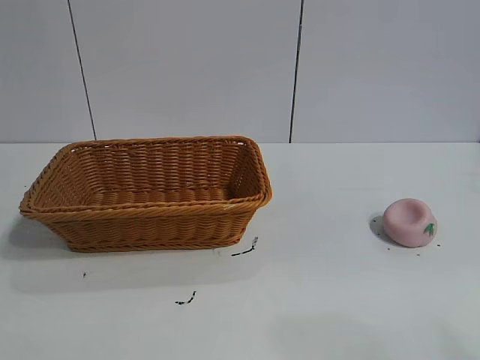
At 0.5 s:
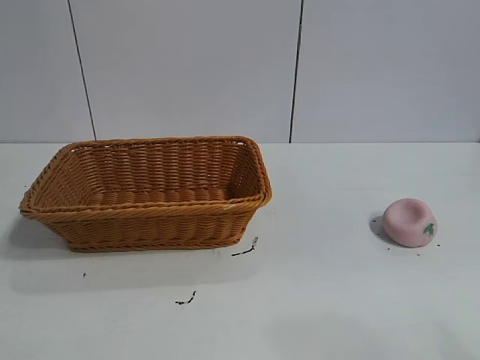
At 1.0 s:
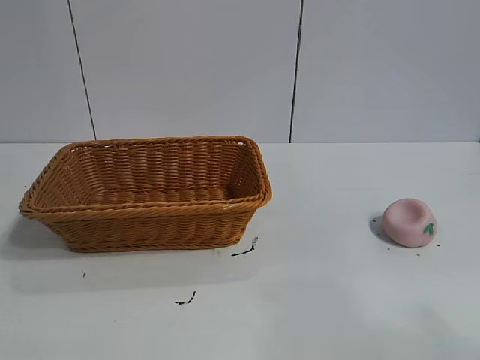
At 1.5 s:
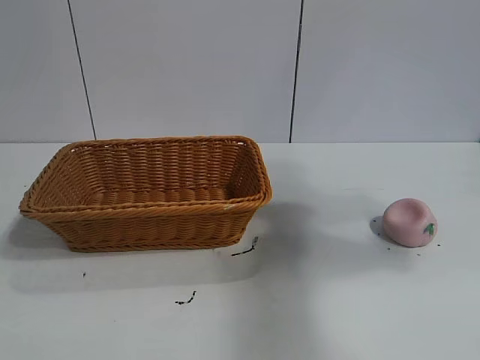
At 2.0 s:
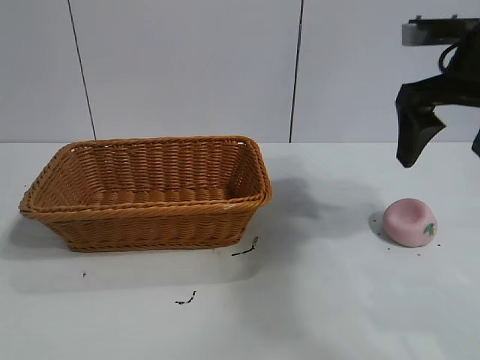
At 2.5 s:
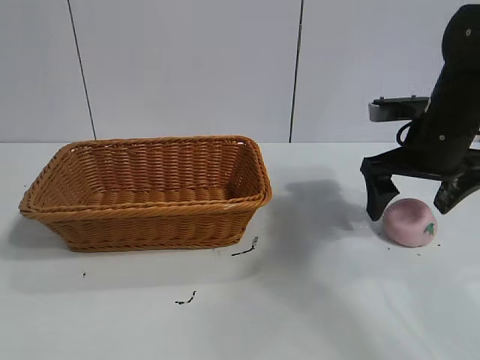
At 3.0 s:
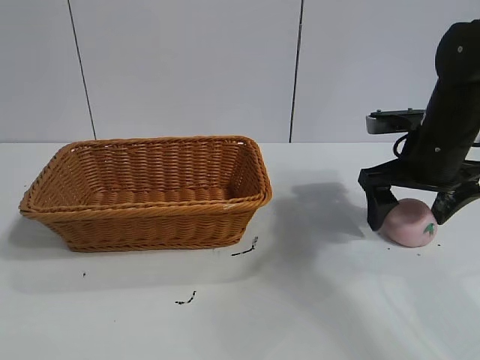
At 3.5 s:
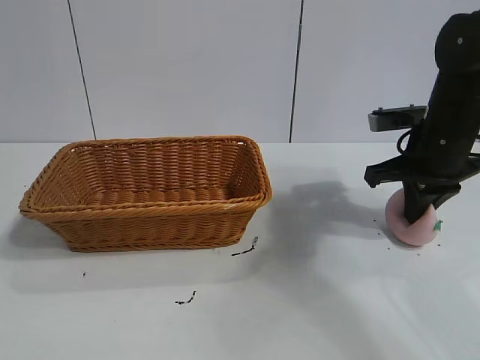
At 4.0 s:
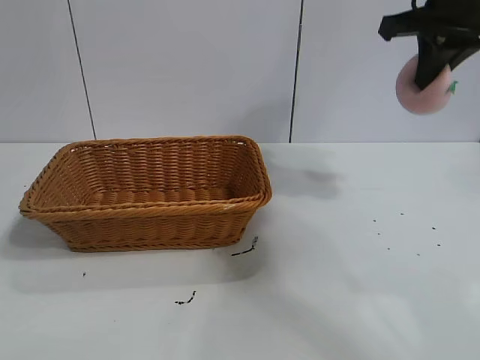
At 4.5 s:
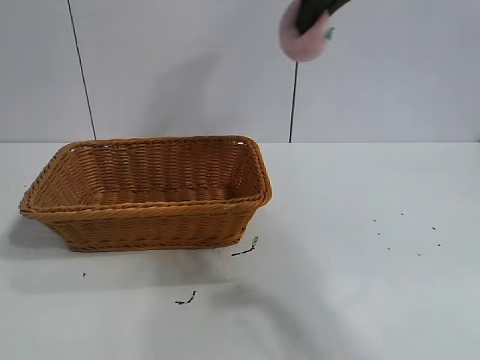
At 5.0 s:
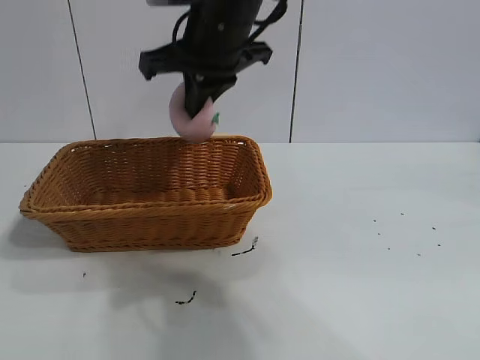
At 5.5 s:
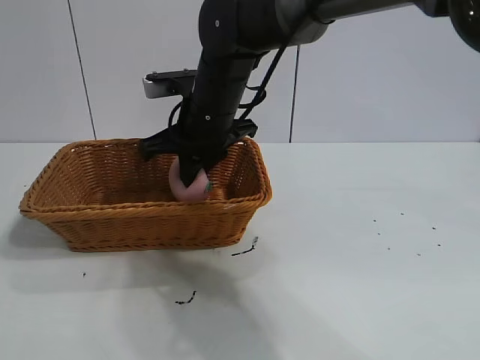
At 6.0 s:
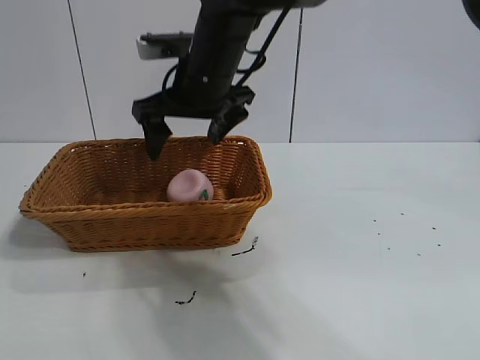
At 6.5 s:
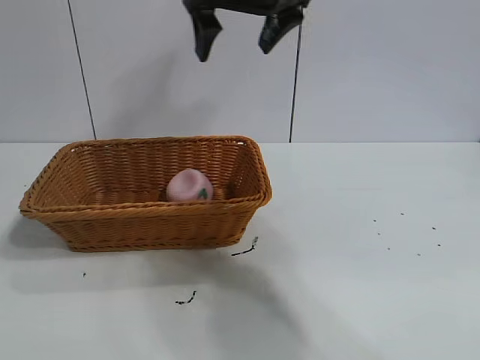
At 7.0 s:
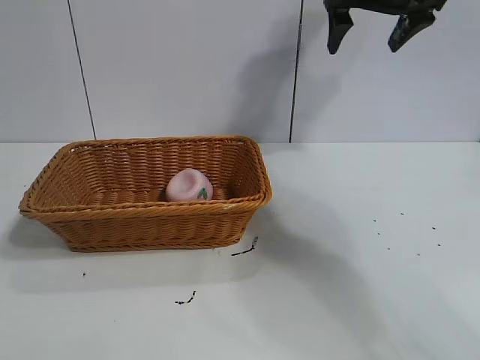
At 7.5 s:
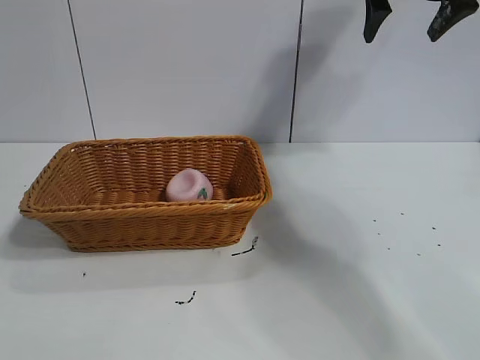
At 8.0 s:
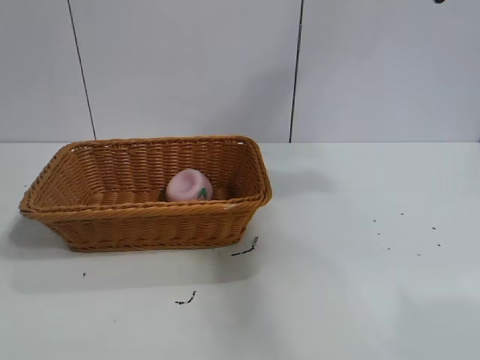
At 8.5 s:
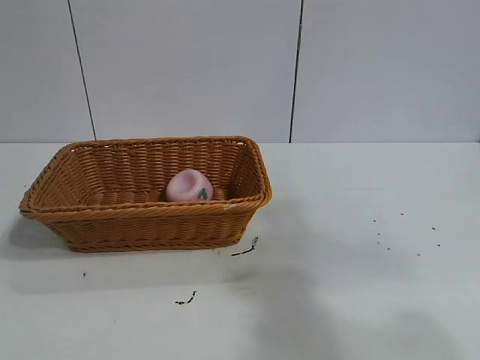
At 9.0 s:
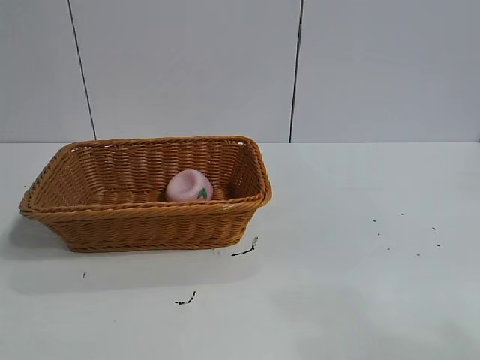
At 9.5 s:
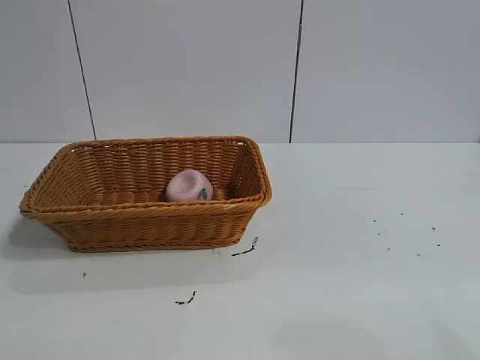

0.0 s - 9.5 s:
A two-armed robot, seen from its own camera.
Task of the whole recording: pick up the peach and put it into the basket.
Step, 1.0 s - 3.5 s: Grasp the peach with right gripper.
Step, 4.0 s - 6.0 s: Place the peach in the basket with right gripper.

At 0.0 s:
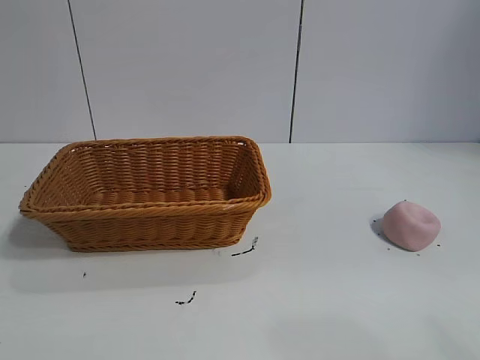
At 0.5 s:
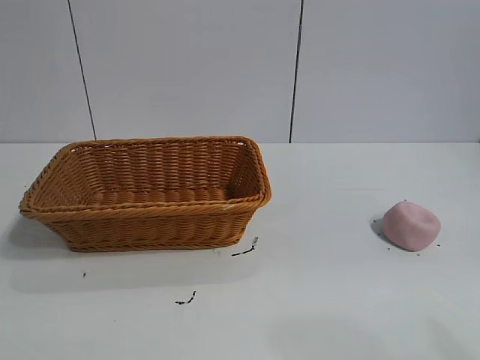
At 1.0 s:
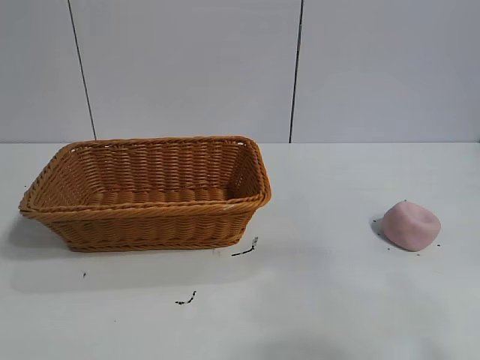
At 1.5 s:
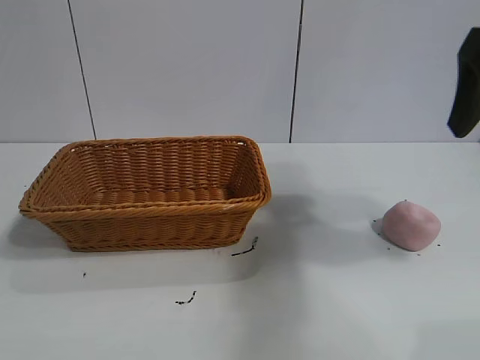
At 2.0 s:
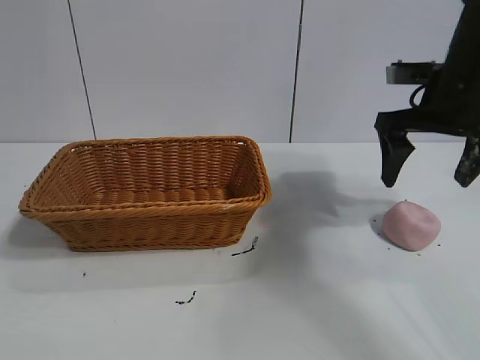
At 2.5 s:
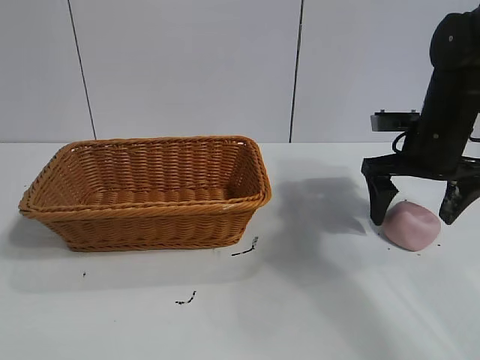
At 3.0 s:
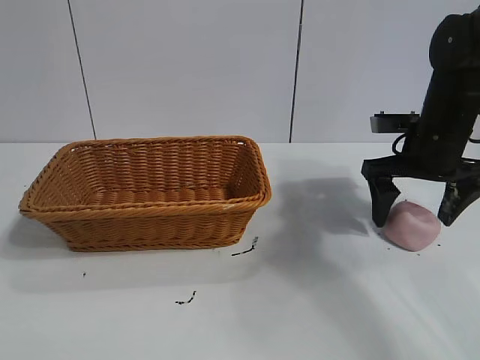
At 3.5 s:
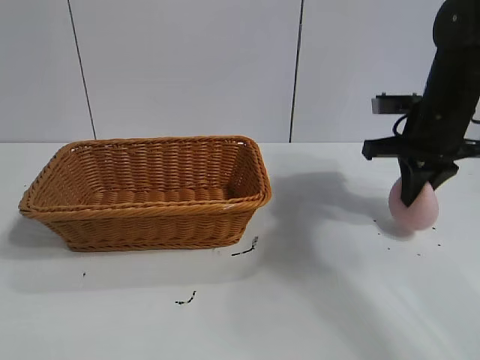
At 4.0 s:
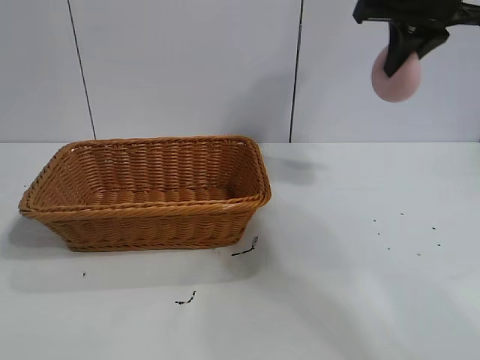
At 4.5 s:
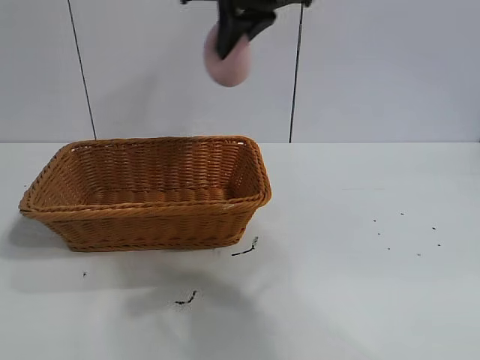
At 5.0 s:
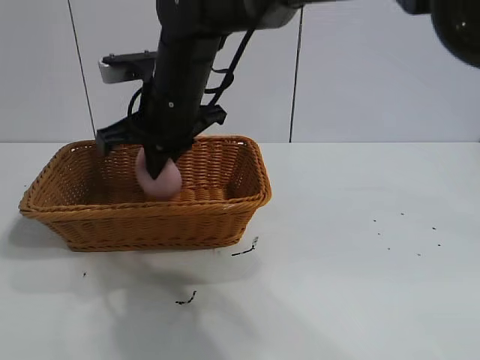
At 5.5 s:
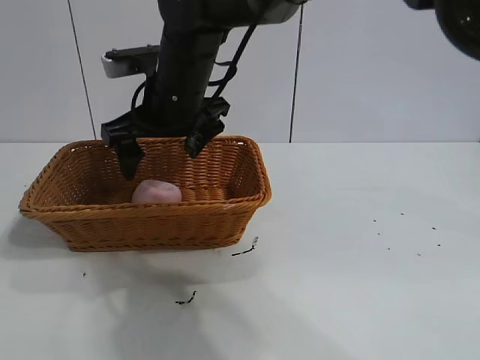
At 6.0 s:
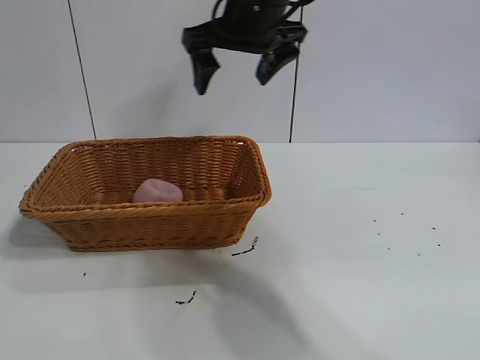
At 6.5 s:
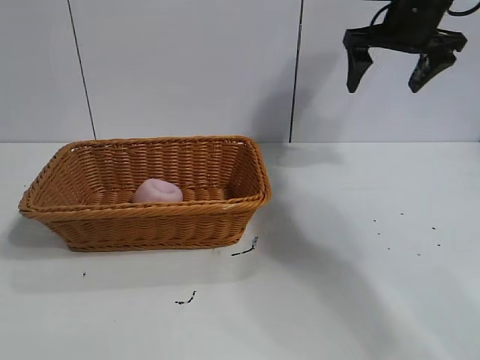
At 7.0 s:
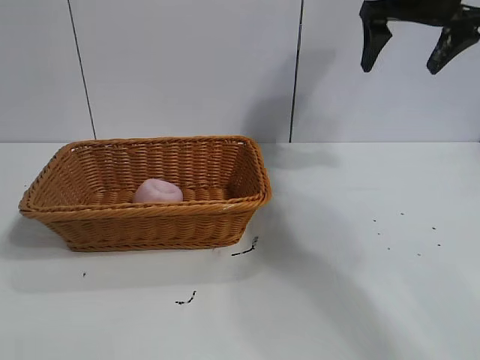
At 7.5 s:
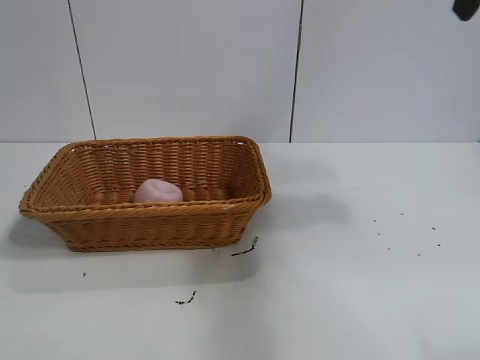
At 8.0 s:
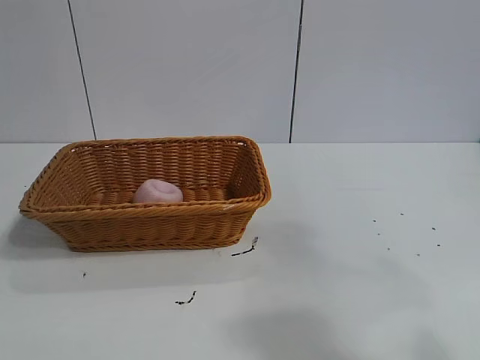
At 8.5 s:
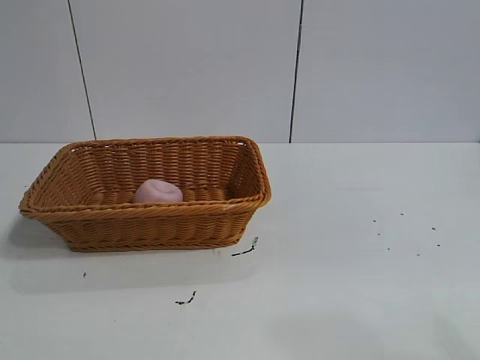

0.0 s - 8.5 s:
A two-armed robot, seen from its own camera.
Task of the whole recording: pick up the peach and put it into the basket.
Step, 1.0 s - 3.0 s: Grasp the peach with right gripper.
Step, 3.5 s - 5.0 s: Place the peach in the basket with right gripper.
